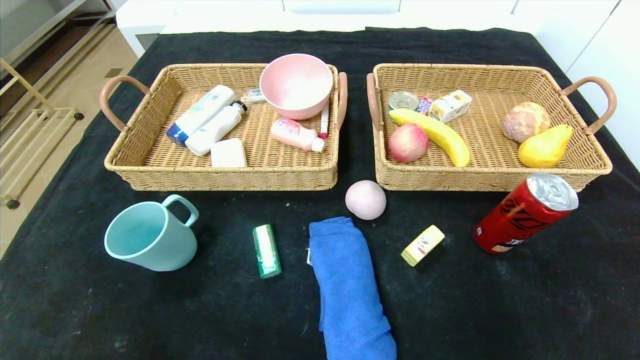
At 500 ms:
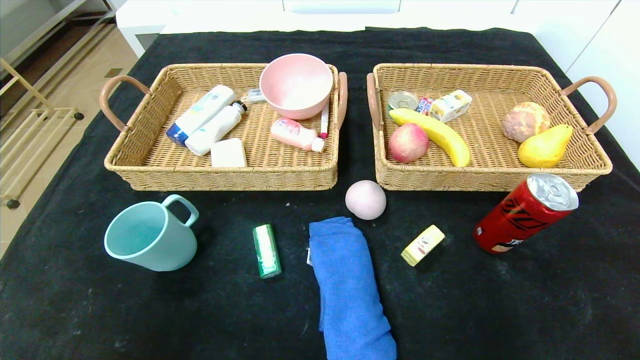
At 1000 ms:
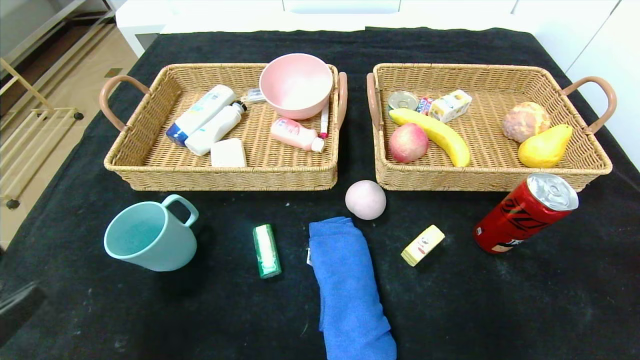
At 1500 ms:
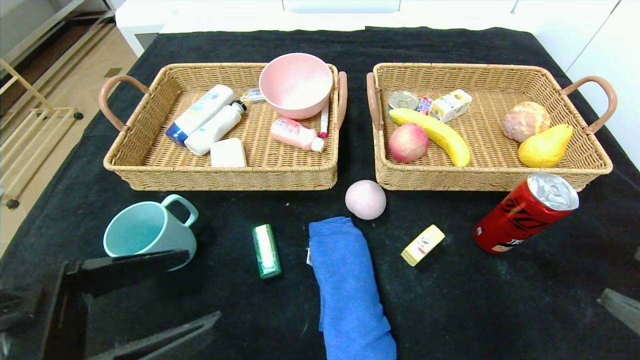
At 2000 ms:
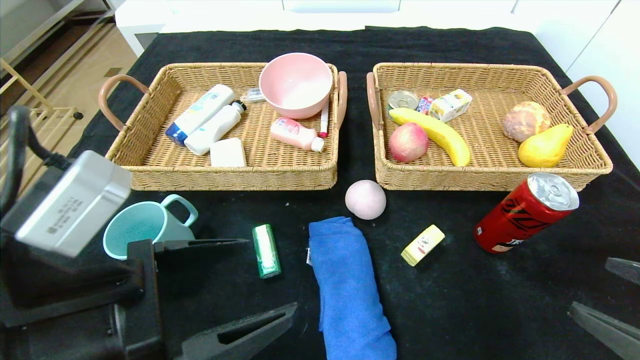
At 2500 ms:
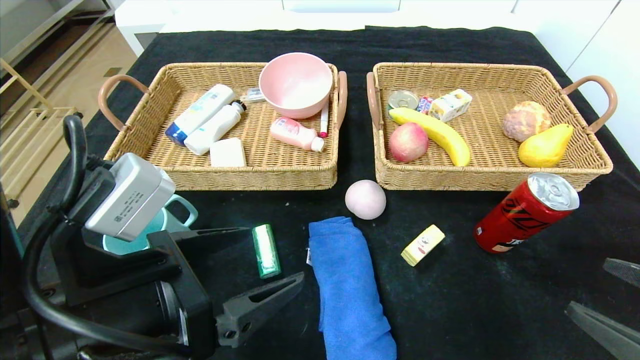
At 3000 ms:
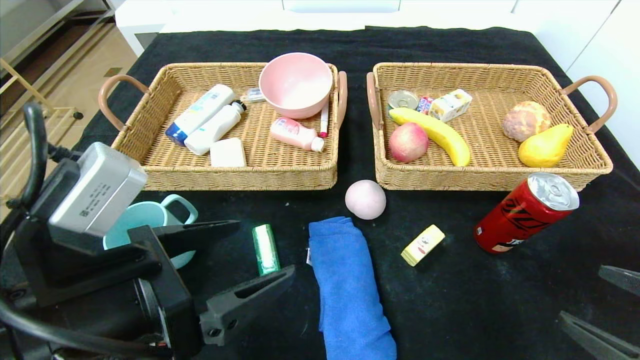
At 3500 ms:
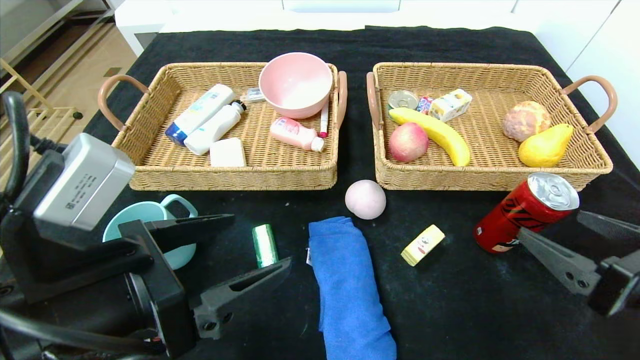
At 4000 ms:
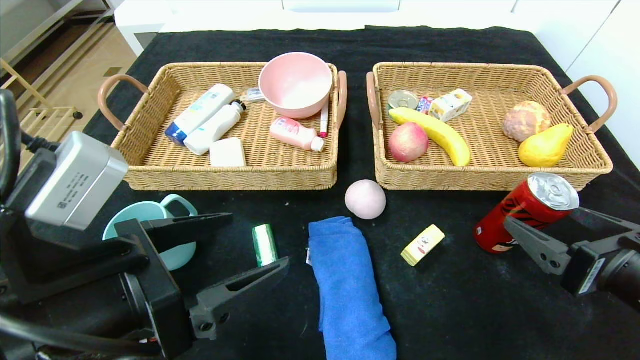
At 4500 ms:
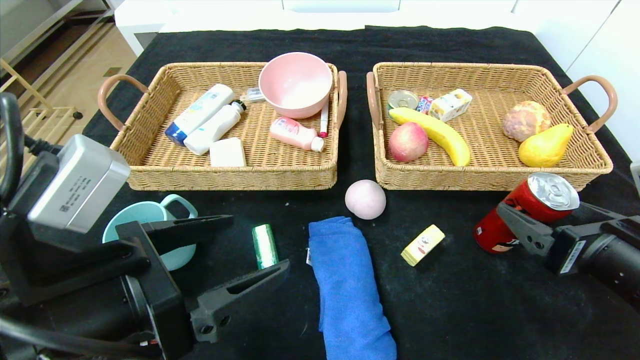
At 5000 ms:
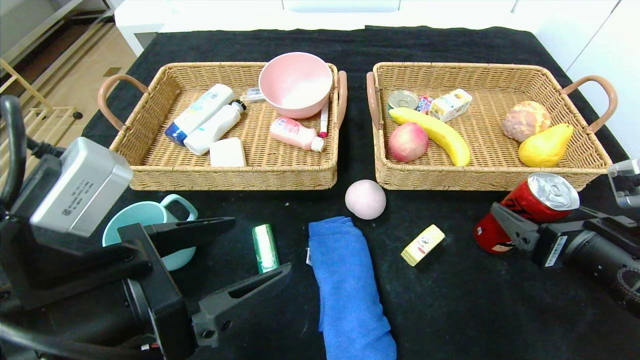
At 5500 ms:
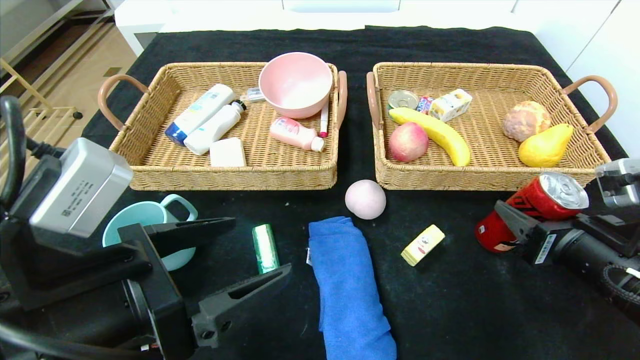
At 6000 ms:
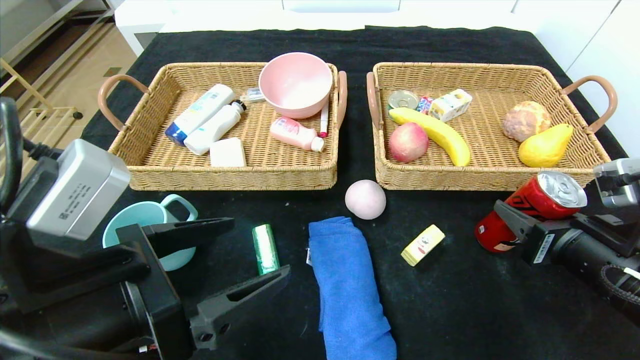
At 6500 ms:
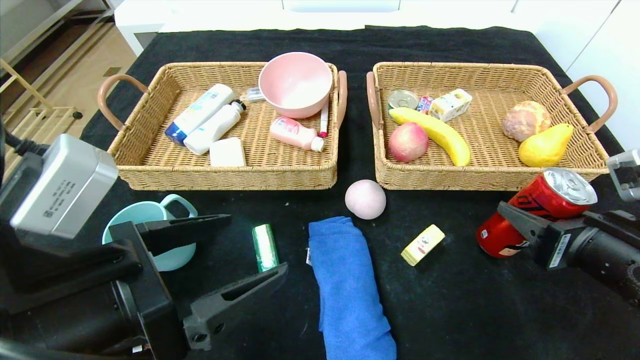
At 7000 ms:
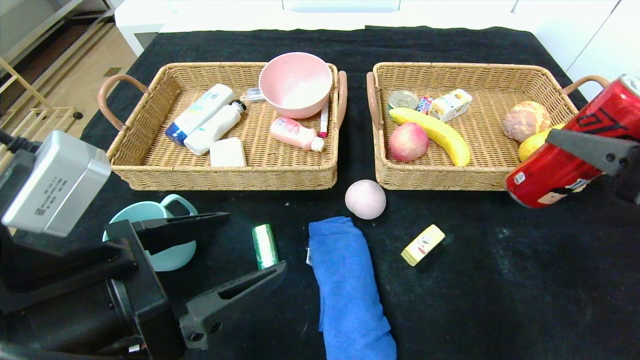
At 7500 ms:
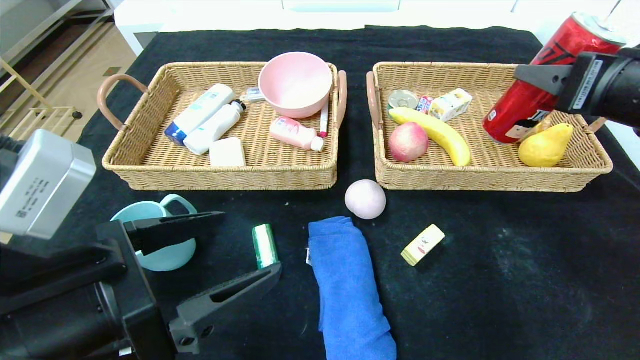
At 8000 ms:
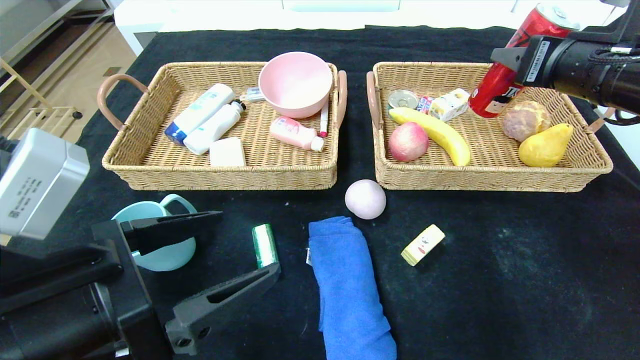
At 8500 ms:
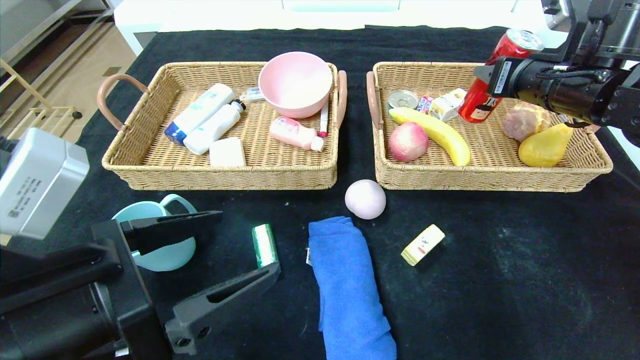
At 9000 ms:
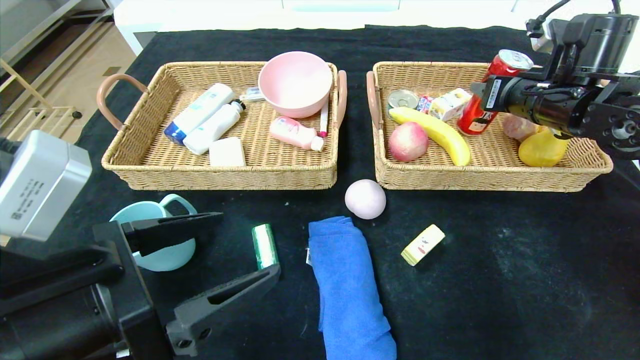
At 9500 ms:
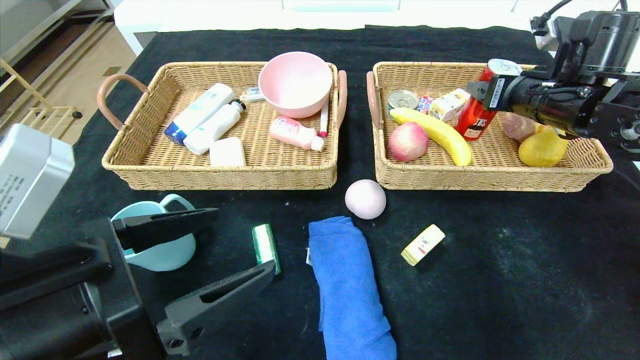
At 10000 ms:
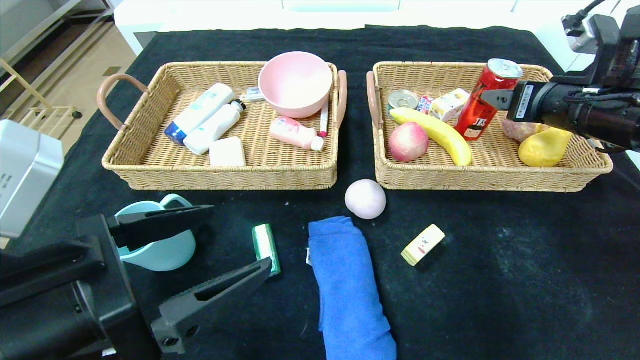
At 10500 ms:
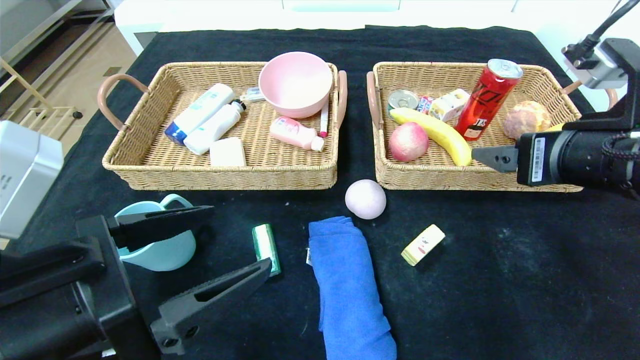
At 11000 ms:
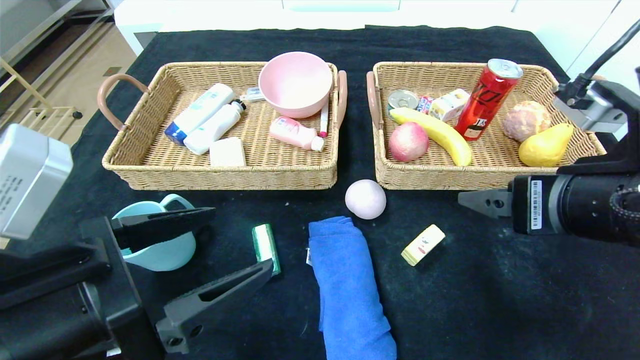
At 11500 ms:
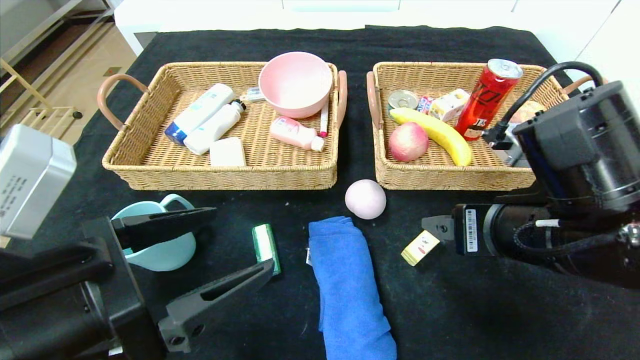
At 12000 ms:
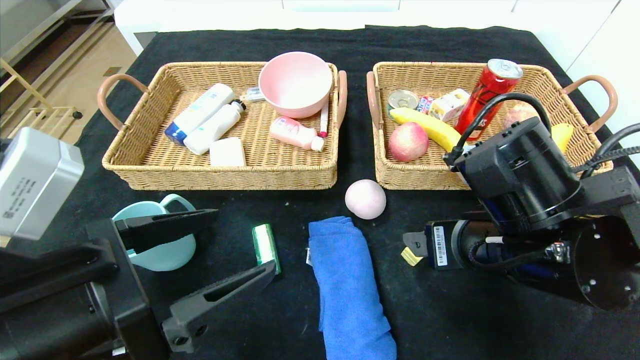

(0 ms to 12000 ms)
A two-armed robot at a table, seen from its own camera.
Step, 0 ms - 10000 ms: Grasp the canned cola and put it in the right basket.
0 ms - 2000 ms: The left gripper travels upward, forward and to the right by roughly 25 cm; the right gripper shifts about 15 cm upward and forward.
2000 ms - 4000 ms: The right gripper heads forward, covering roughly 5 cm.
4000 ms - 6000 ms: The right gripper closes its fingers.
6000 ms - 8000 ms: The right gripper goes about 20 cm upward and forward.
8000 ms - 10000 ms: The right gripper goes forward and returns, roughly 10 cm each way, and opens its fingers.
10000 ms - 12000 ms: The right gripper shifts roughly 20 cm to the left, backward and downward.

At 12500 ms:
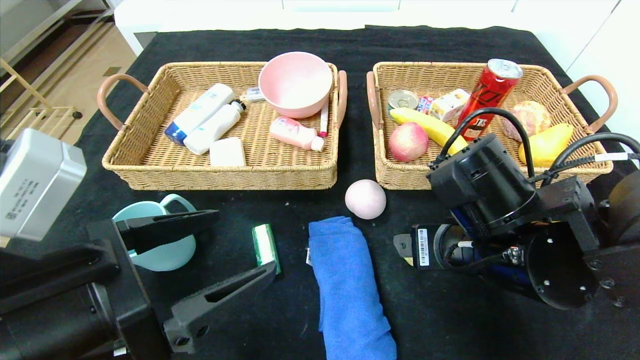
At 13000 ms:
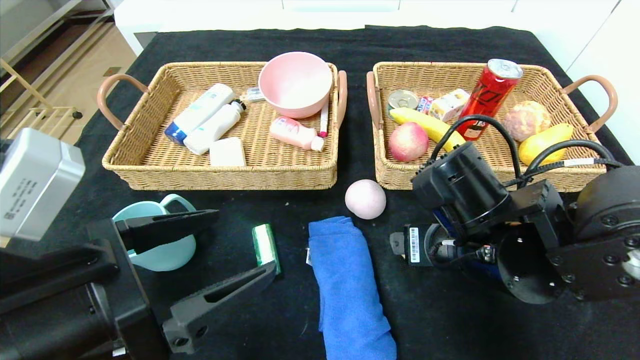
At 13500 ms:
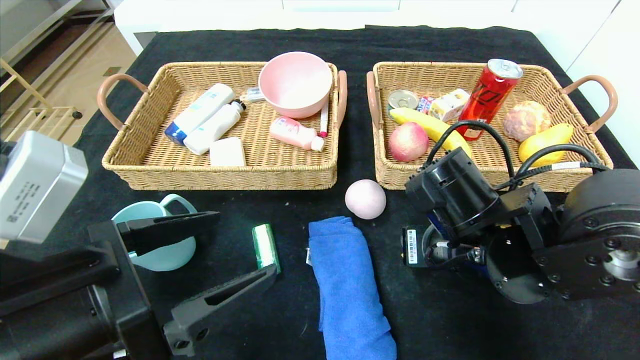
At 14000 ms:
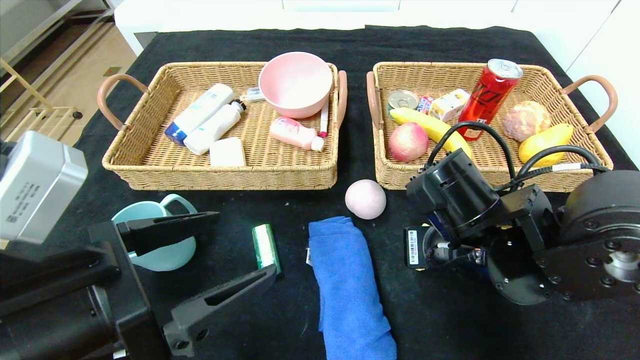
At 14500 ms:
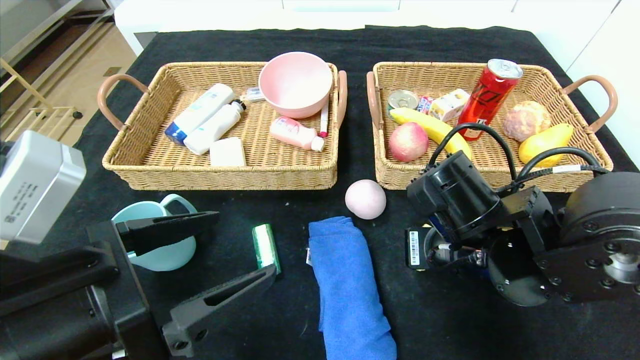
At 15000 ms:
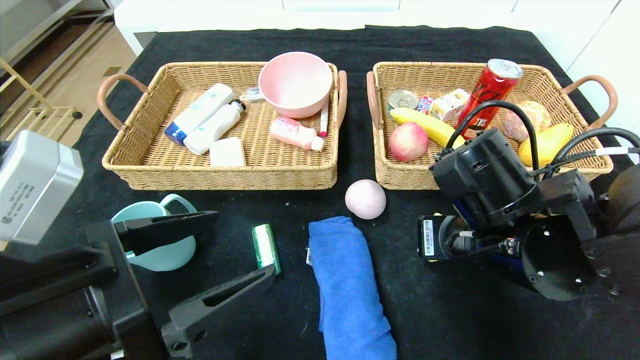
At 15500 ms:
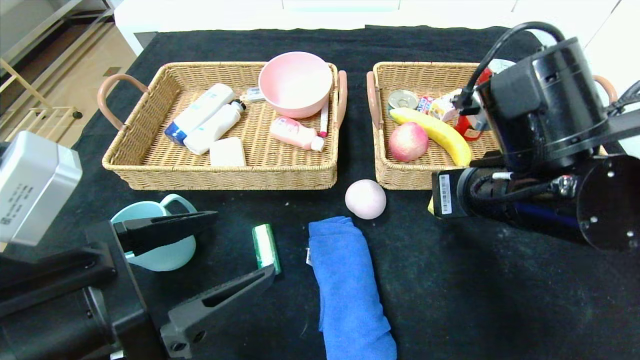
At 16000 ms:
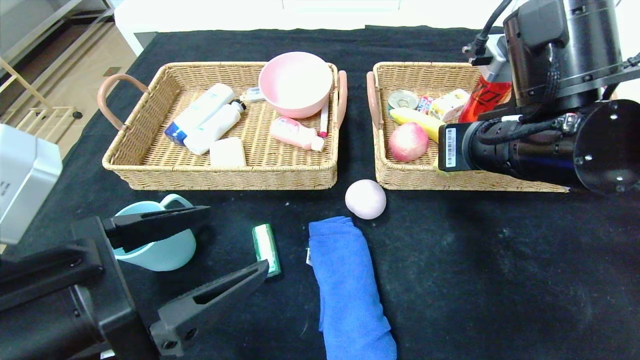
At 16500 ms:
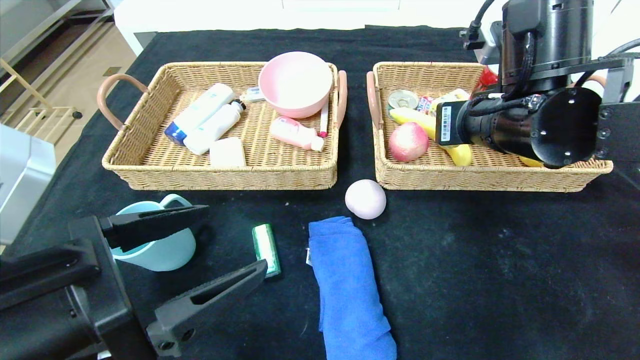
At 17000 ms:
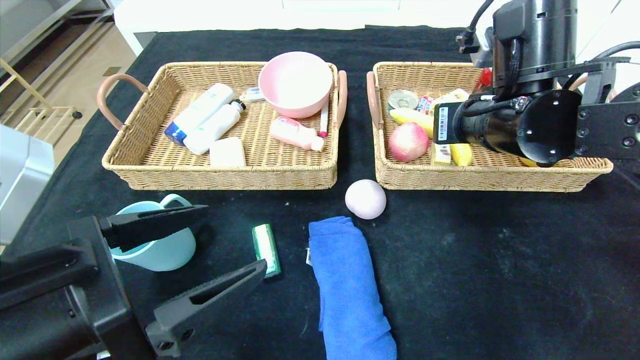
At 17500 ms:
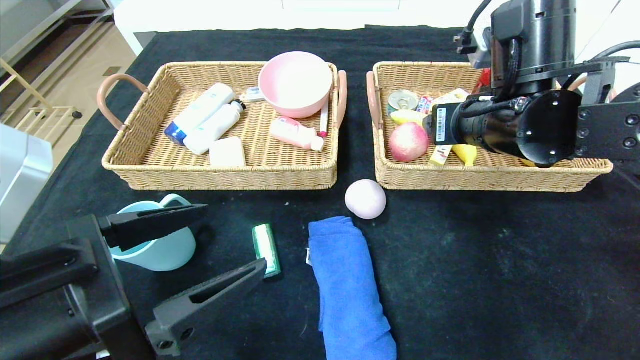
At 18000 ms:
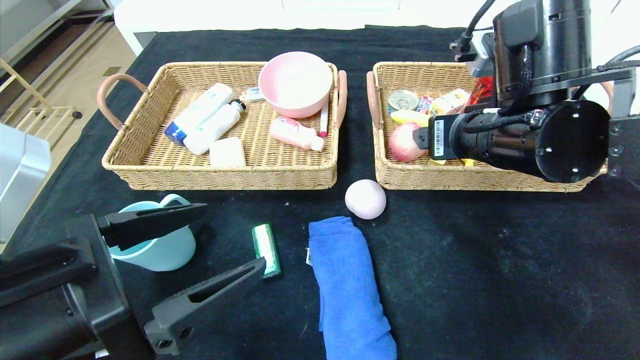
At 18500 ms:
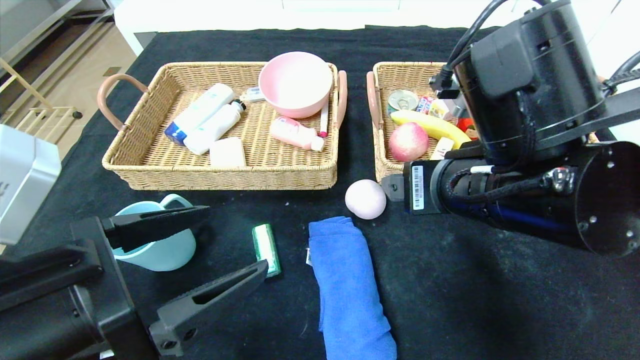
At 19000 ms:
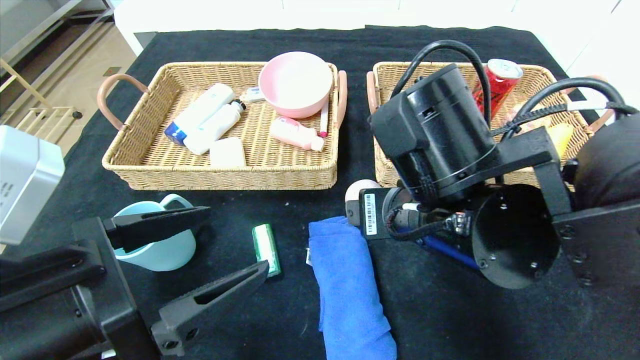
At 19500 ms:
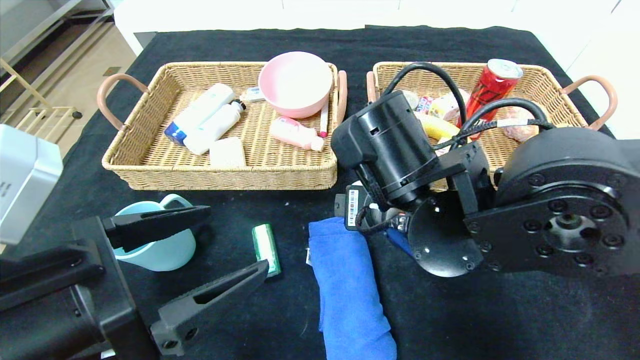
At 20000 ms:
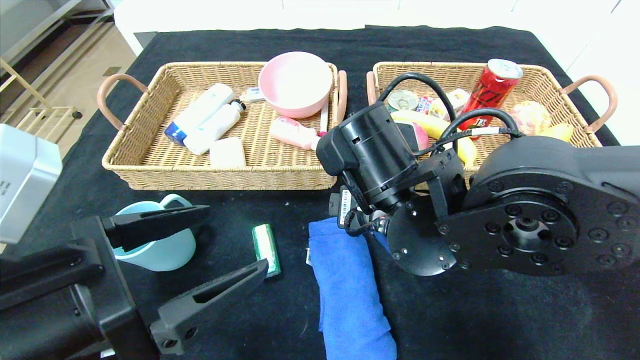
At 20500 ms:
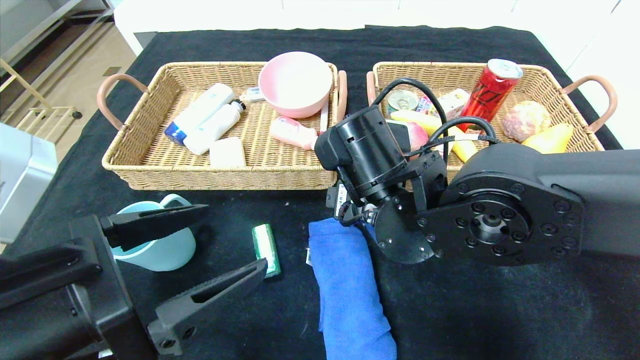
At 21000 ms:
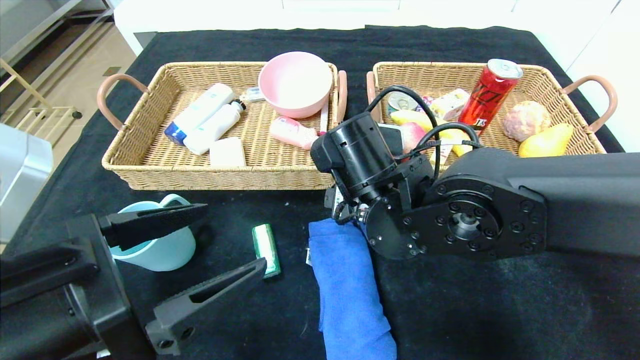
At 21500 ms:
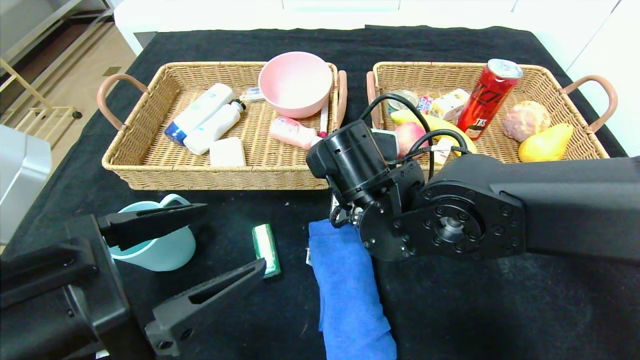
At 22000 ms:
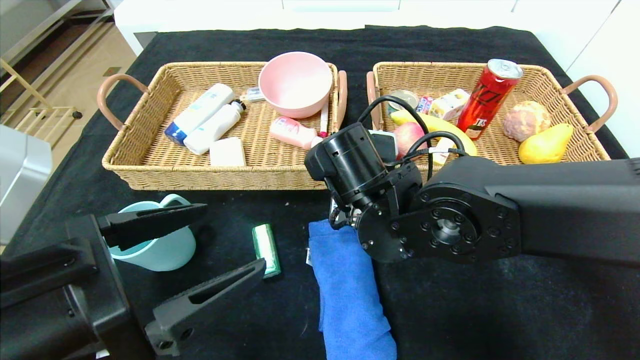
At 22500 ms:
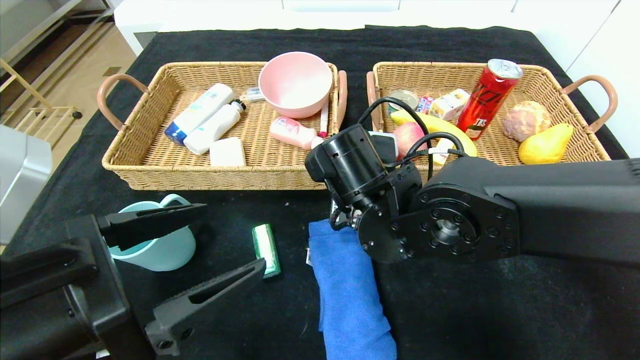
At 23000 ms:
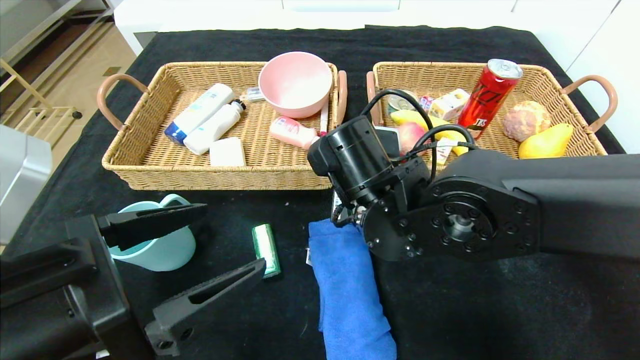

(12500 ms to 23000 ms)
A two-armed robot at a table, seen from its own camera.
Step, 12500 ms - 17000 ms: Grasp the yellow cake and put it in the right basket.
12500 ms - 14500 ms: The right gripper closes its fingers.
14500 ms - 16500 ms: The right gripper moves upward and forward, approximately 15 cm.
16500 ms - 19000 ms: The right gripper shifts about 15 cm to the left, backward and downward, and opens its fingers.
19000 ms - 21000 ms: The right gripper goes roughly 5 cm forward.
21000 ms - 23000 ms: The right gripper closes up.
